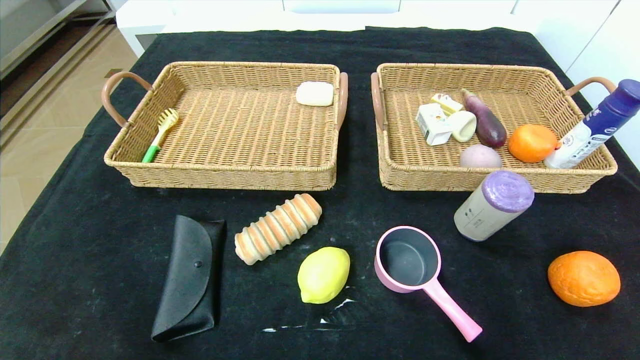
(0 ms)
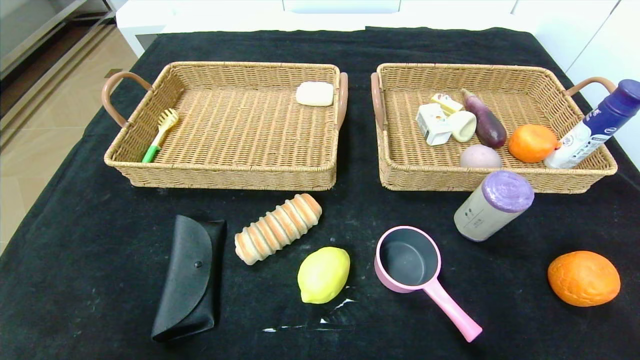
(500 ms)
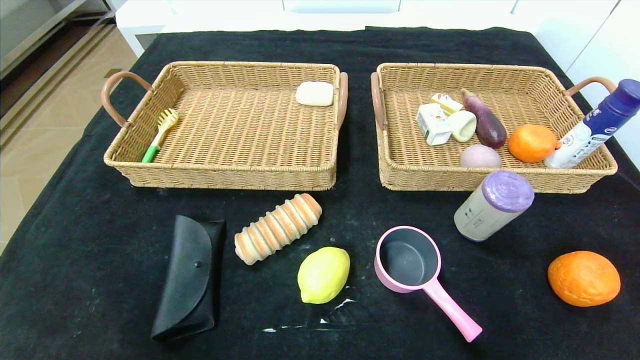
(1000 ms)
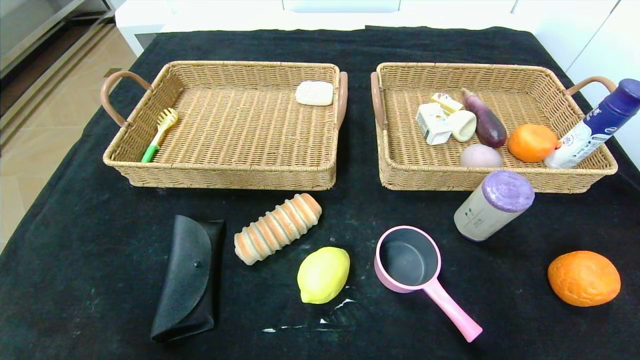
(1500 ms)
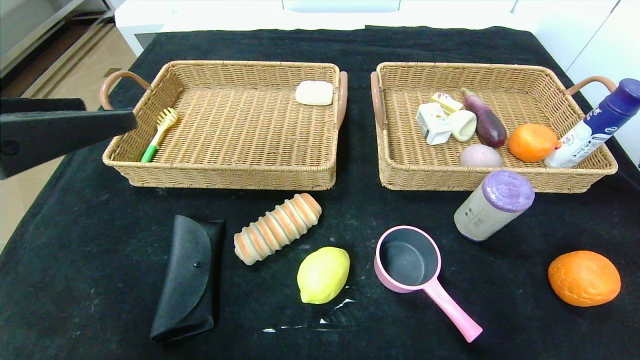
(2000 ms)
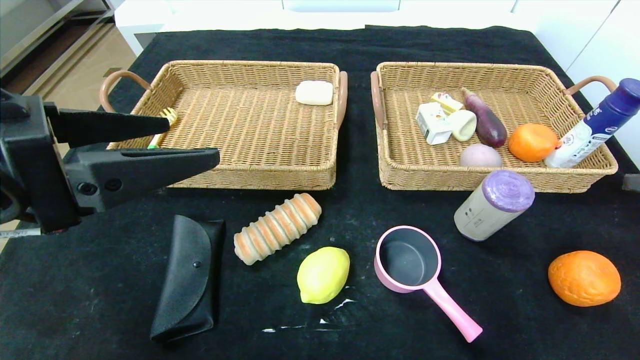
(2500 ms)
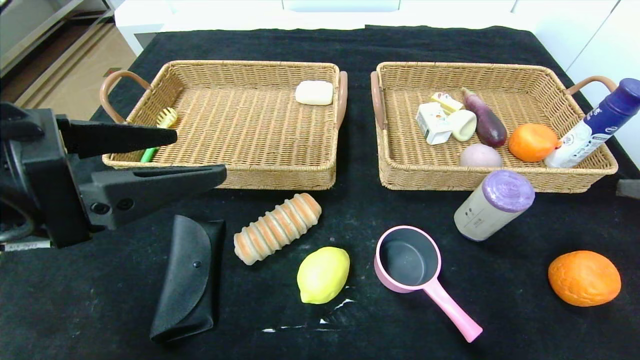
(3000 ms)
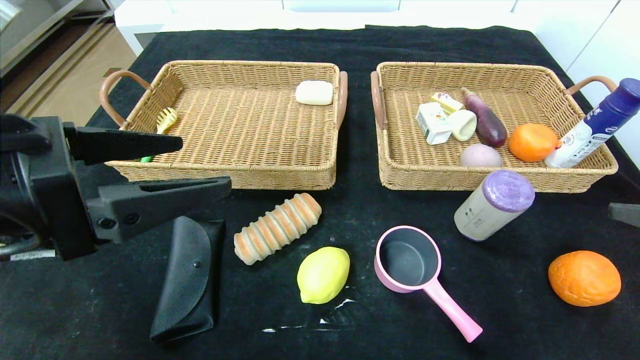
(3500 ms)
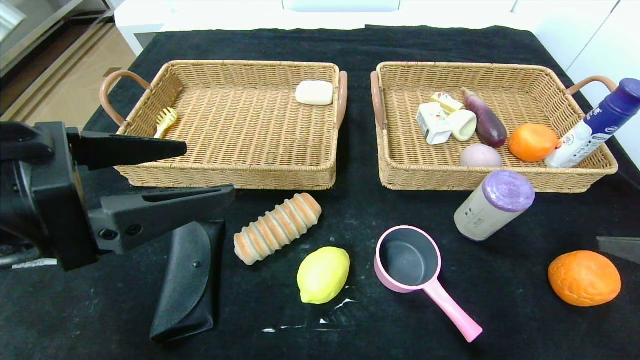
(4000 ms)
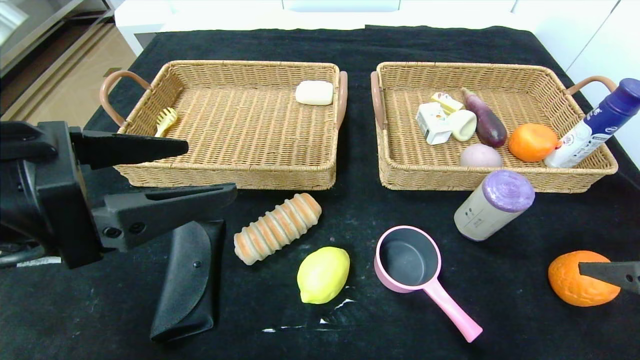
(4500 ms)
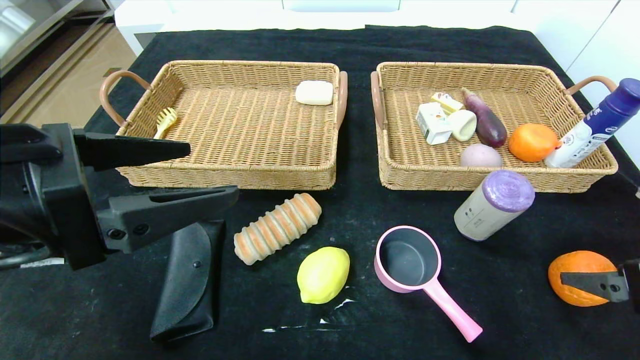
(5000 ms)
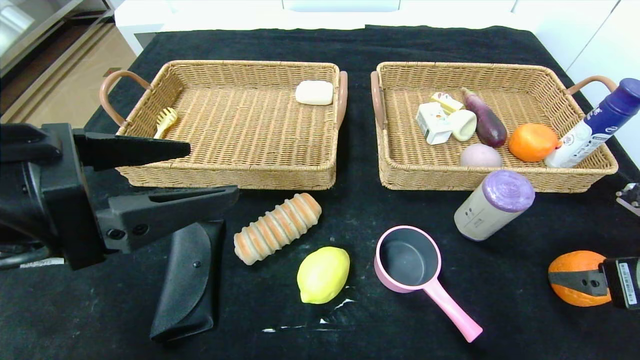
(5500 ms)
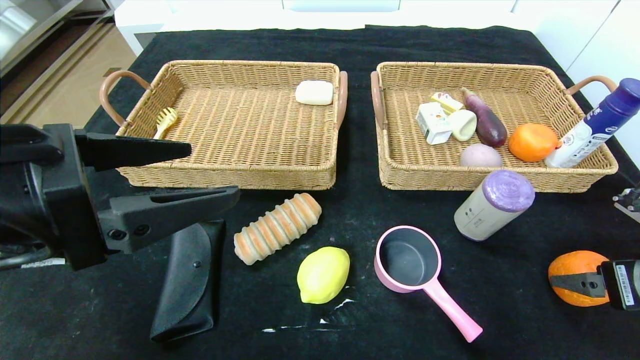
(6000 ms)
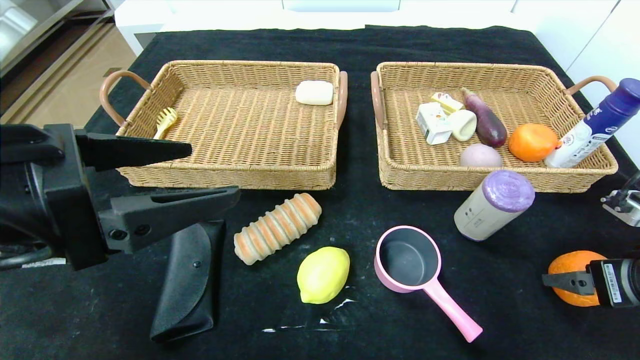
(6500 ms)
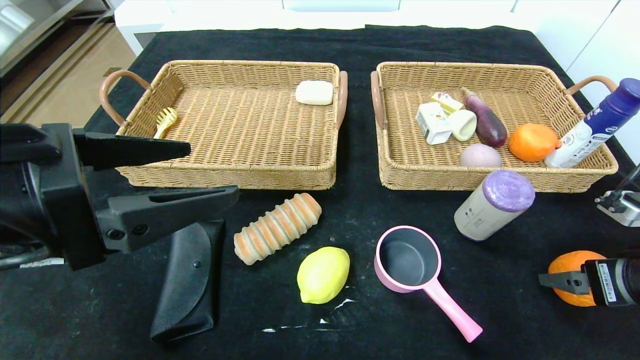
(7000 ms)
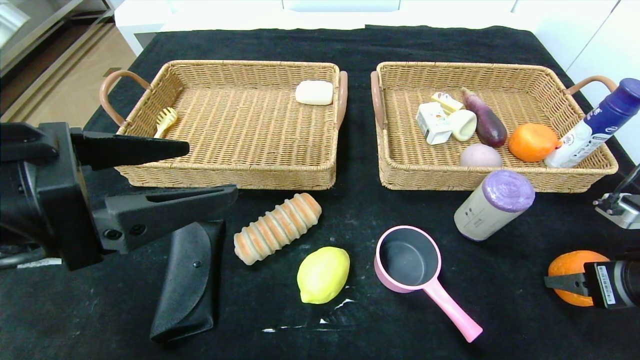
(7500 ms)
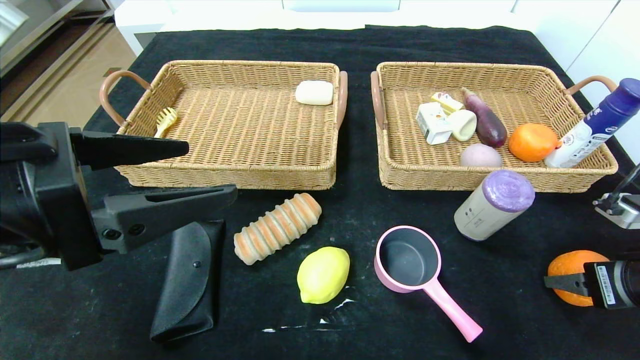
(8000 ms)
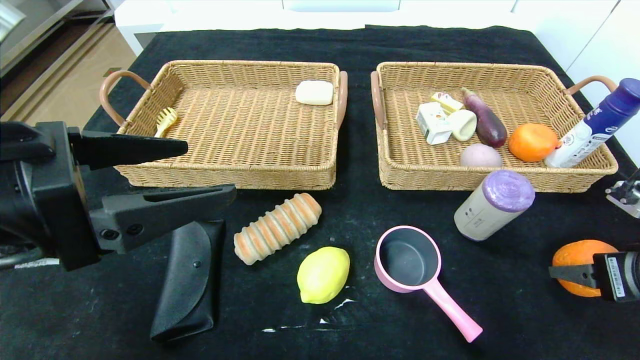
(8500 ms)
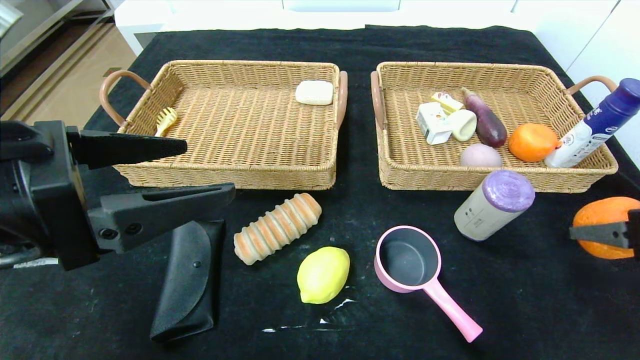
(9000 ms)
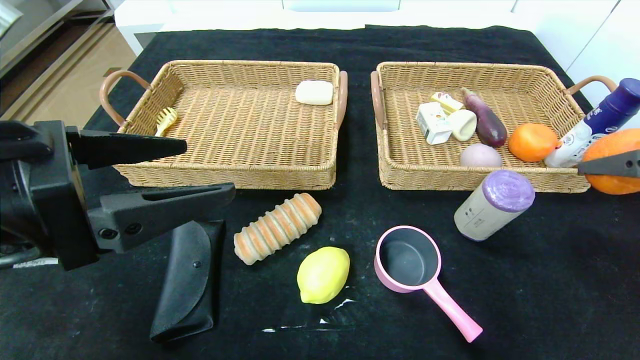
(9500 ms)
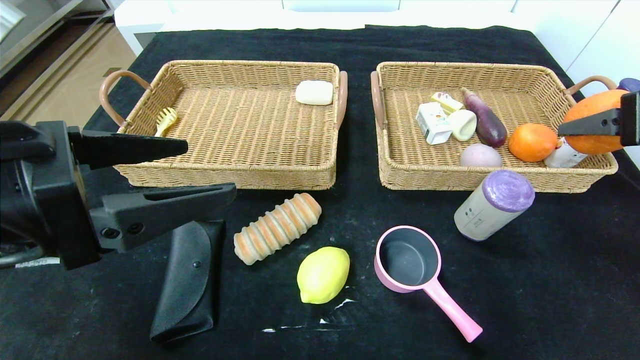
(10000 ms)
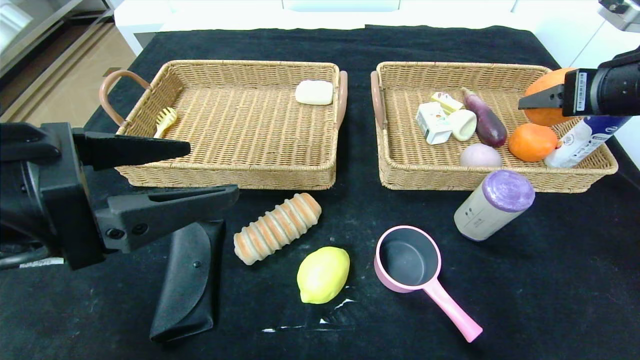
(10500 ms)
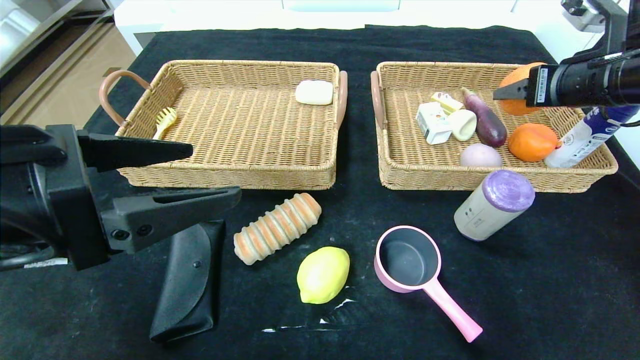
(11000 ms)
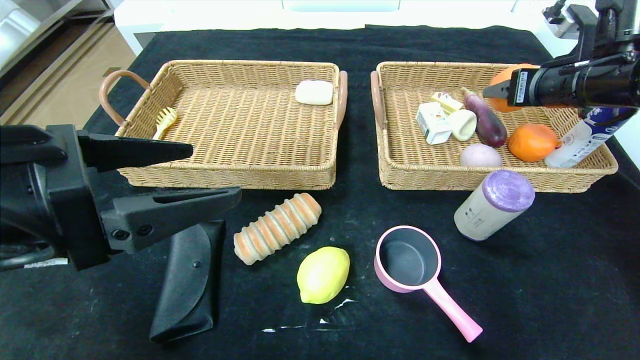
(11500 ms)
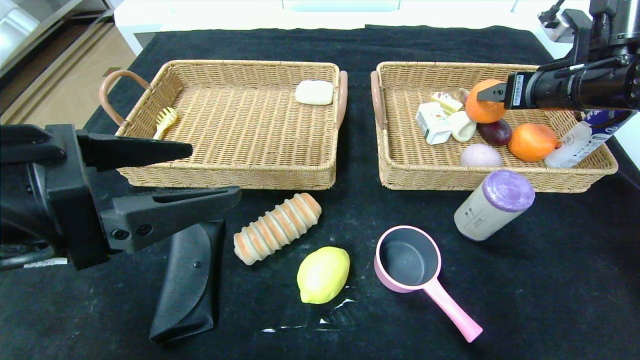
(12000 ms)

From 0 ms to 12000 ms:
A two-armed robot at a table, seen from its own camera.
From 0 ms to 2000 ms: The two grippers go some 30 cm upward and forward.
From 2000 ms to 4000 ms: The right gripper heads downward, covering roughly 5 cm.
From 4000 ms to 6000 ms: The right gripper goes approximately 5 cm downward.
From 6000 ms to 8000 ms: The right gripper closes its fingers.
From 8000 ms to 10000 ms: The right gripper goes roughly 15 cm upward.
From 10000 ms to 12000 ms: The right gripper is displaced forward by about 15 cm.

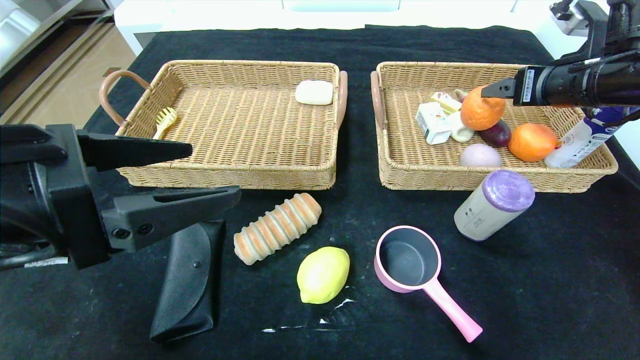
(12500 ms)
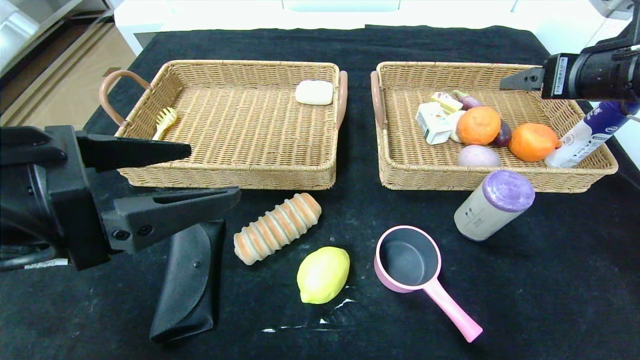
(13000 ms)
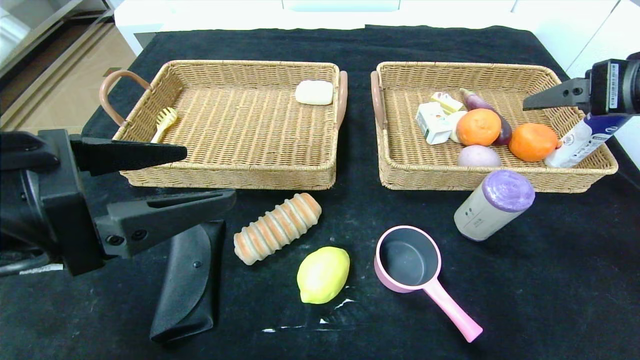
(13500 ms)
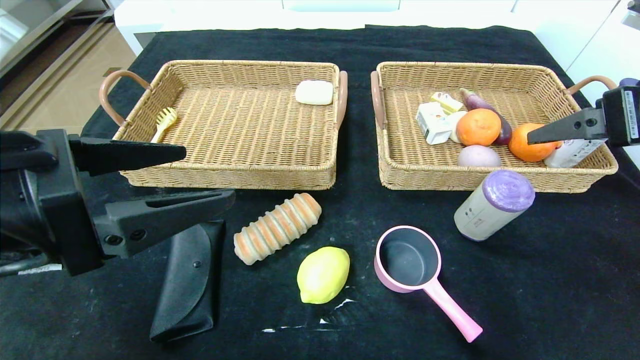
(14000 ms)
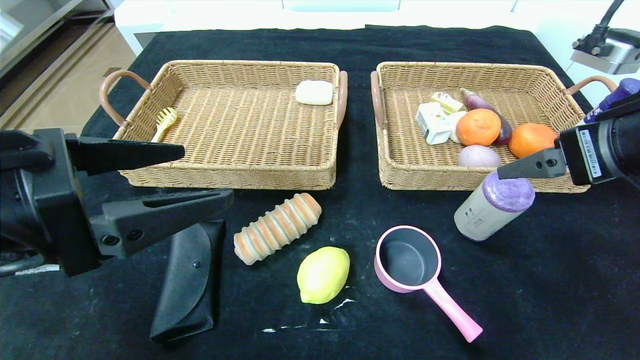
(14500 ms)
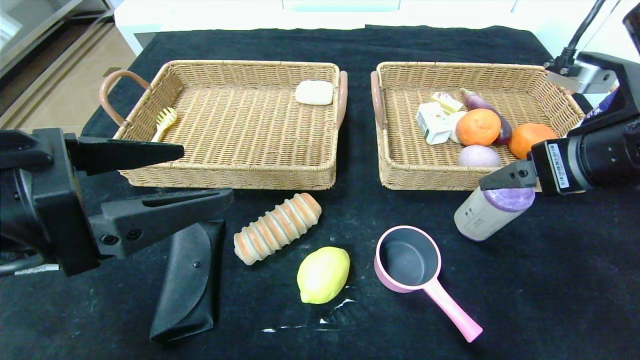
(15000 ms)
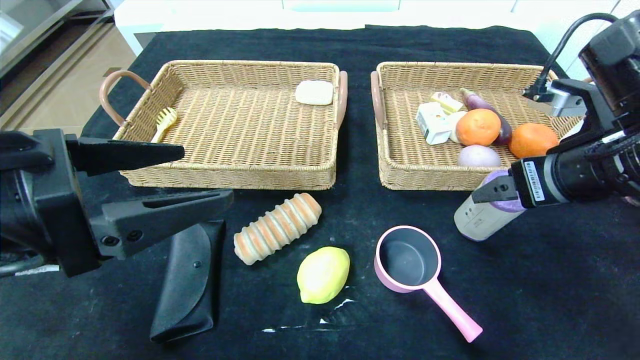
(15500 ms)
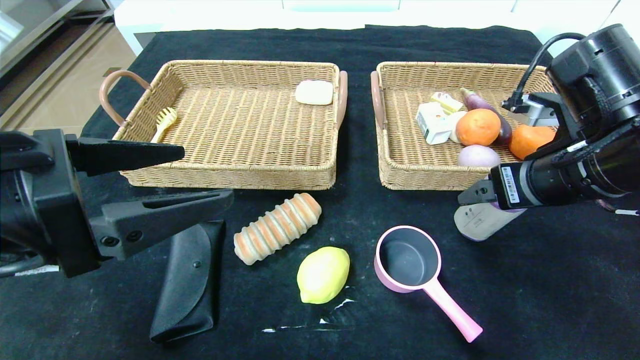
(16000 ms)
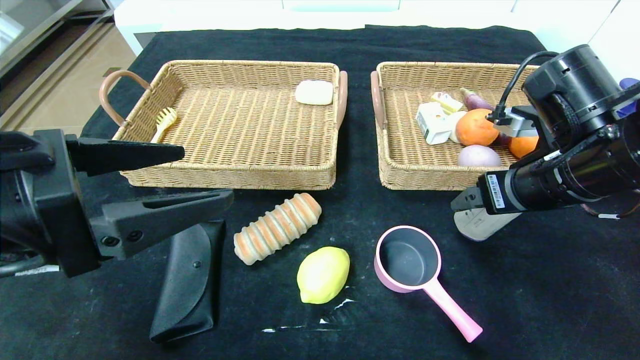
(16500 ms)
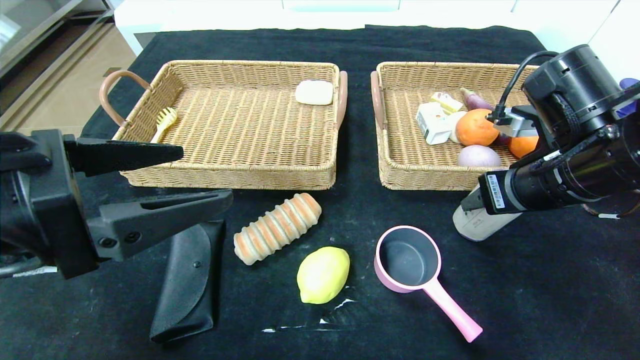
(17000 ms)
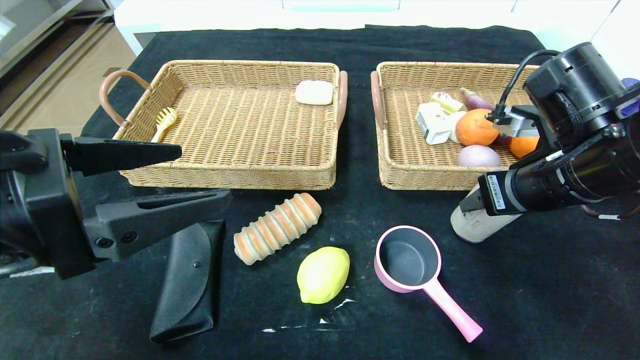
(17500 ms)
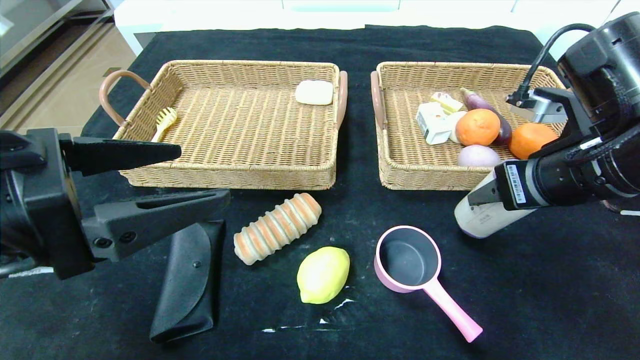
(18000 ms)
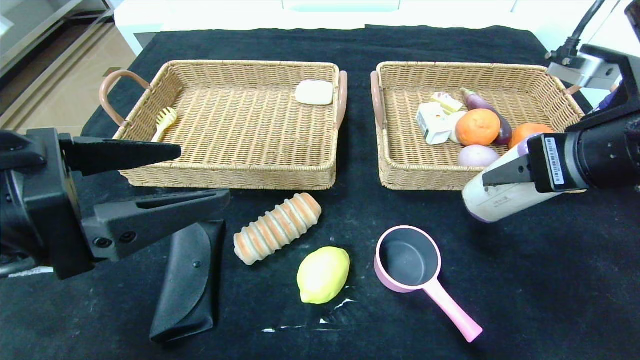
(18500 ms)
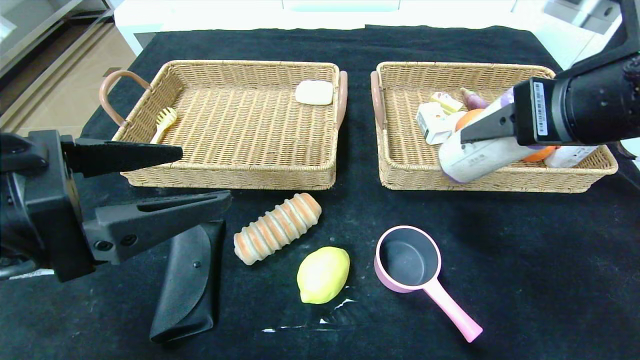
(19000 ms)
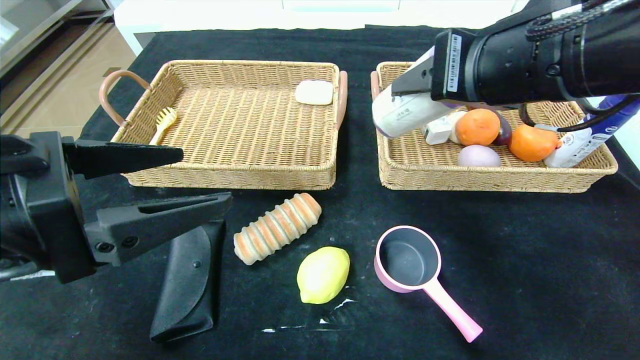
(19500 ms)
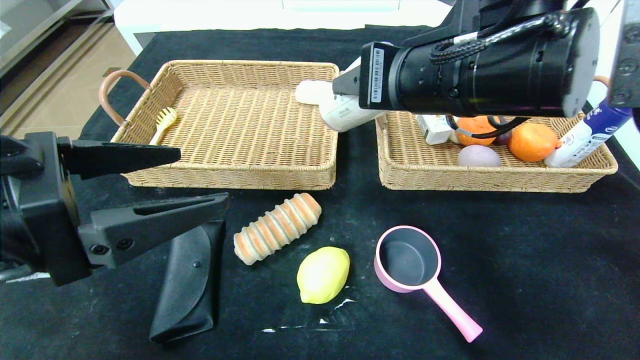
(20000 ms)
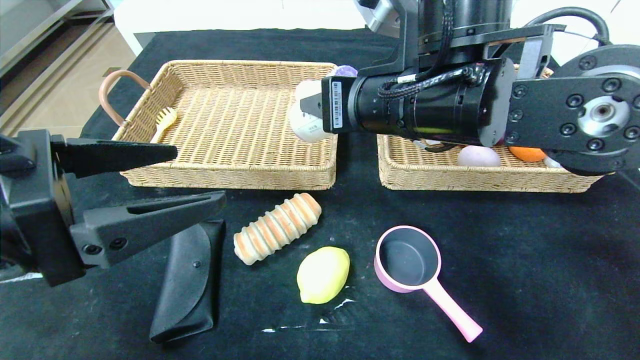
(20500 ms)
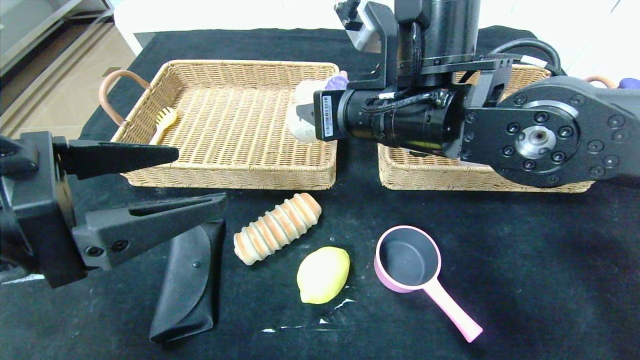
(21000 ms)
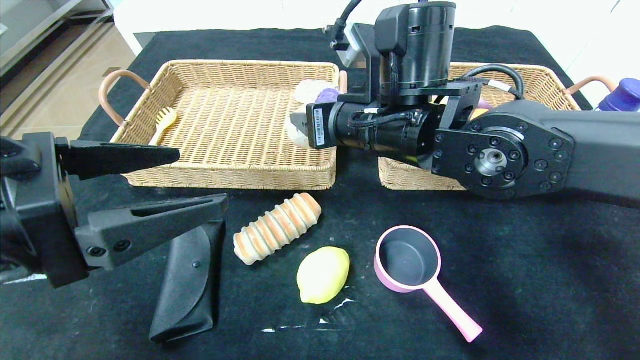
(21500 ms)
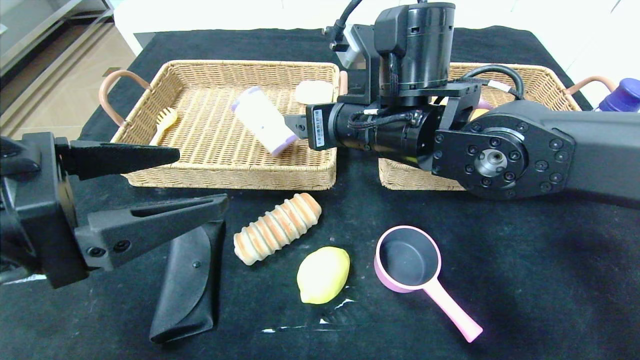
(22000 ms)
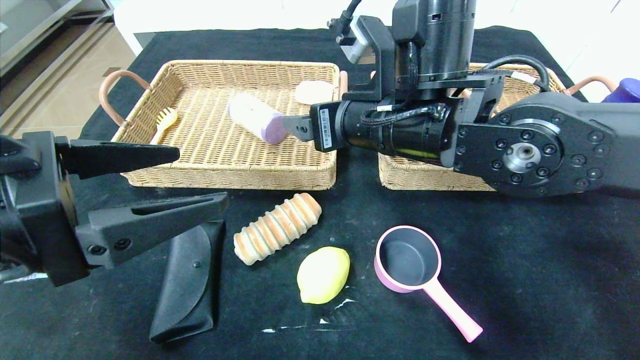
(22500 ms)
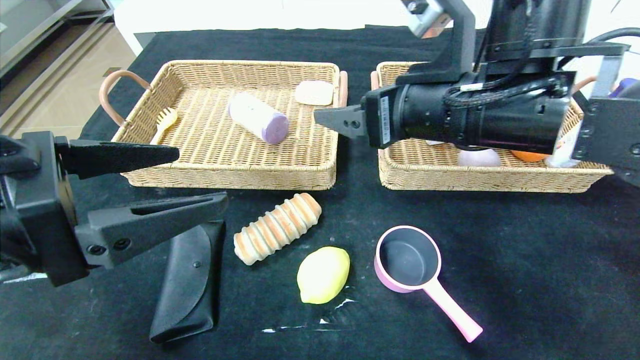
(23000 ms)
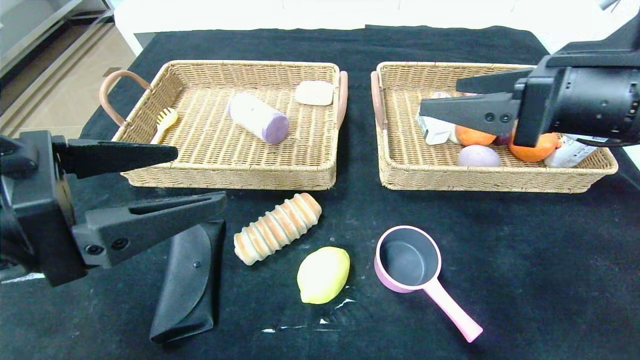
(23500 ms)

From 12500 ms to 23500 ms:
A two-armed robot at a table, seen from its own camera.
From 12500 ms to 14500 ms: The right gripper travels backward by about 15 cm.
From 14500 ms to 16000 ms: The right gripper shifts by about 5 cm.
From 16000 ms to 18000 ms: The right gripper closes its fingers.
From 18000 ms to 20000 ms: The right gripper heads to the left and upward, covering roughly 15 cm.
From 20000 ms to 21500 ms: The right gripper travels forward and downward by about 10 cm.
From 21500 ms to 23500 ms: The right gripper heads to the right and backward, covering about 20 cm.